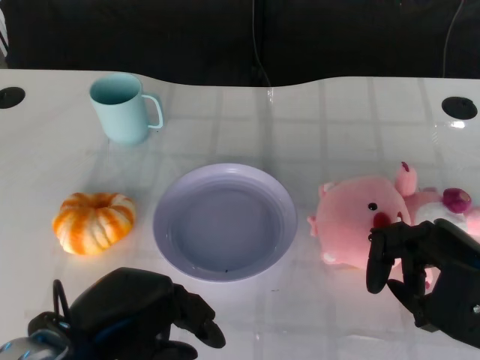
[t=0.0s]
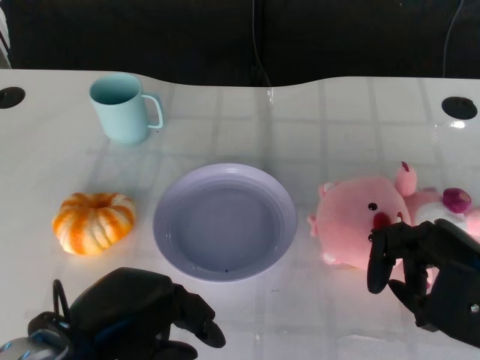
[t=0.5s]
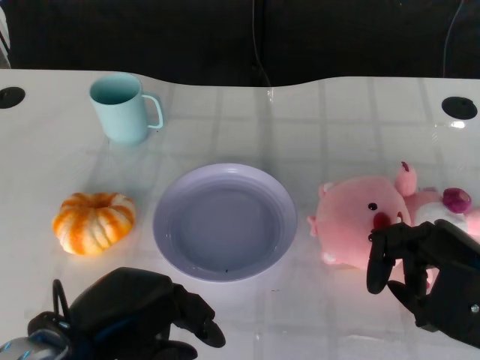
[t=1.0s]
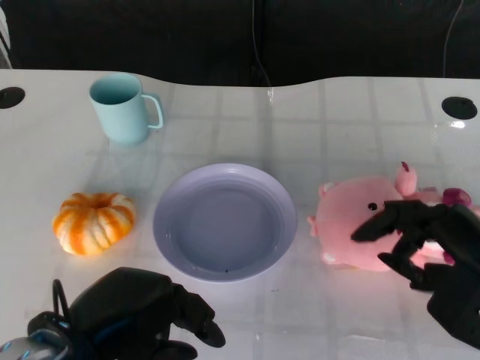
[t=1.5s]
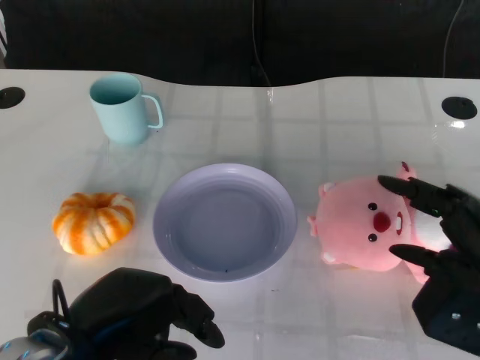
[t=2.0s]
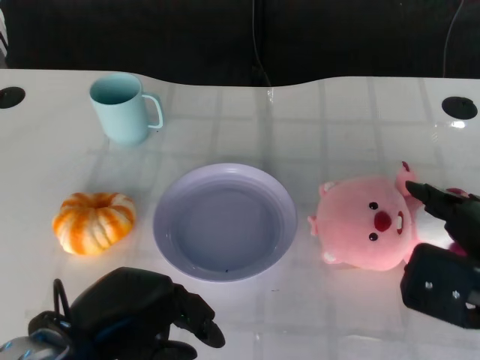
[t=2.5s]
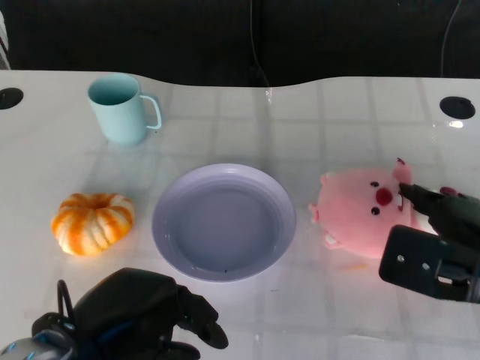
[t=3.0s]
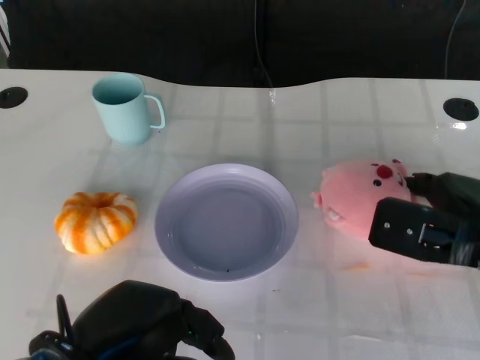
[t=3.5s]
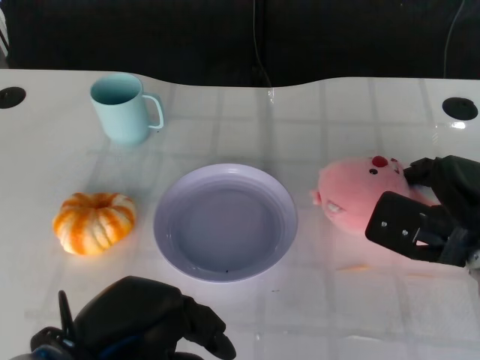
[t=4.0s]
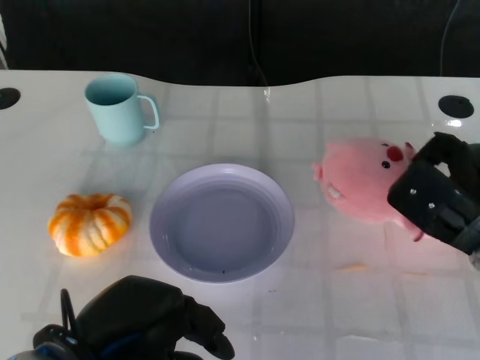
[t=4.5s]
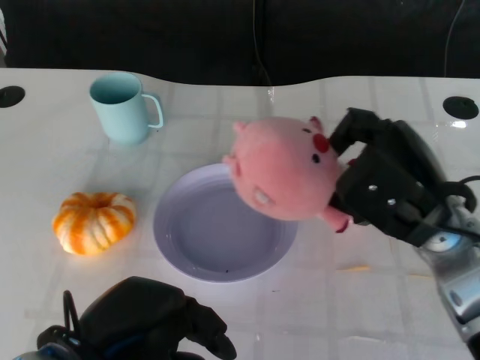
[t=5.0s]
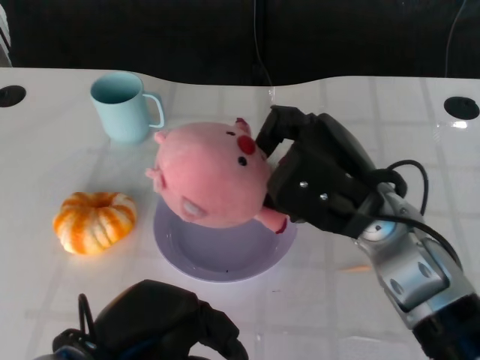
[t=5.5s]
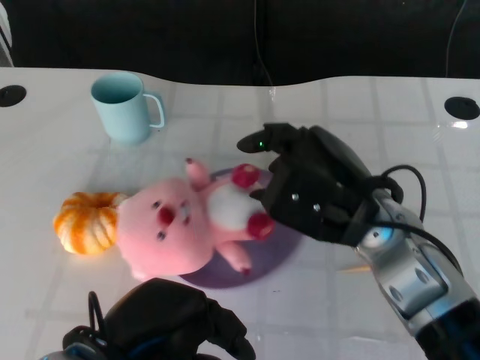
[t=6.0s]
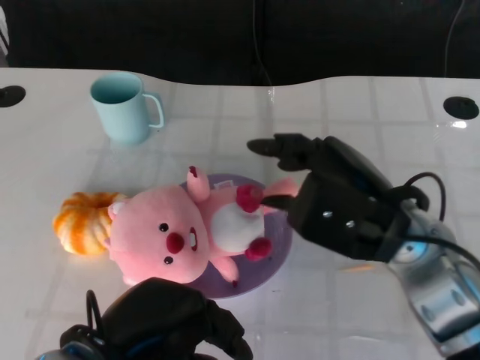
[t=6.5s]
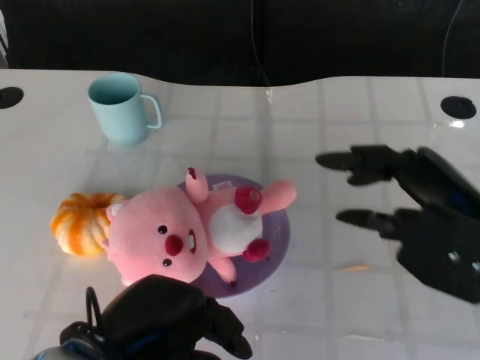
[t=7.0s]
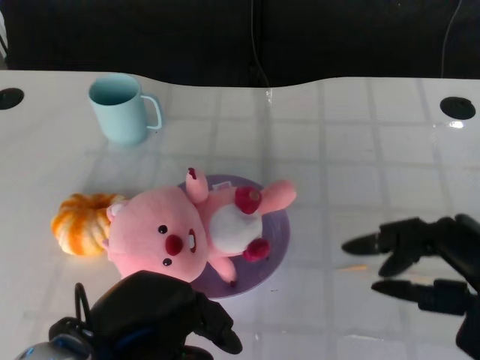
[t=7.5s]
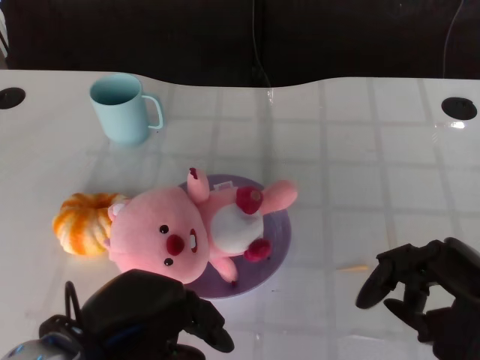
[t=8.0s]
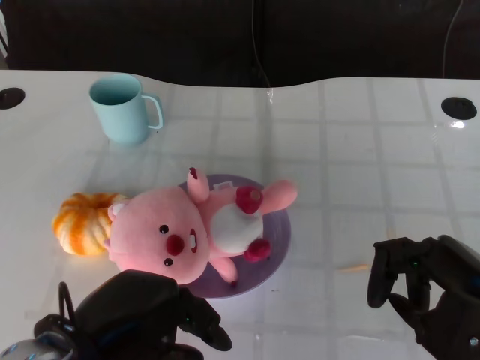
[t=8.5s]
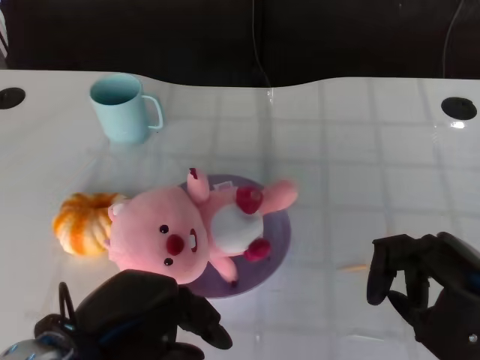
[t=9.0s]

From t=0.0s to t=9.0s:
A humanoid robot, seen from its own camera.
Task of the whole recording: Pick up the doll on the other side of the plate and place it into the plate.
Step, from t=1.5s to t=5.0s: Grasp the pink doll with the right gripper.
Step, from t=5.5s to t=6.5s: Place the pink doll into the plate with the right gripper.
From t=2.0s to t=4.5s: The right hand travels forward by about 10 cm.
From t=4.5s to t=7.0s: The right hand moves upward and backward, about 10 cm, and travels to the left and back again, approximately 10 cm each way.
From t=7.0s to t=9.0s: The right hand shifts some 5 cm downward.

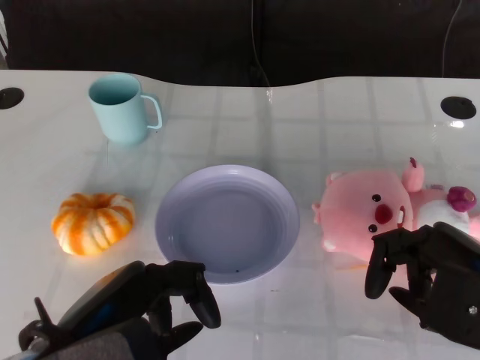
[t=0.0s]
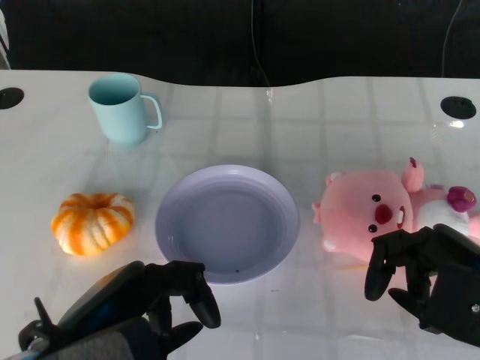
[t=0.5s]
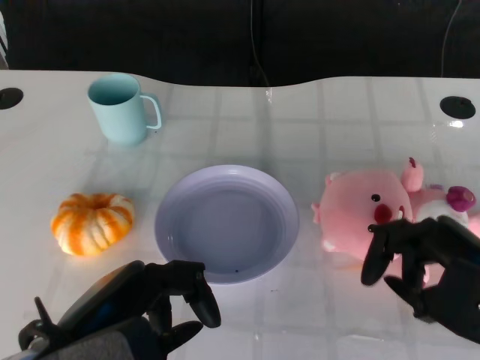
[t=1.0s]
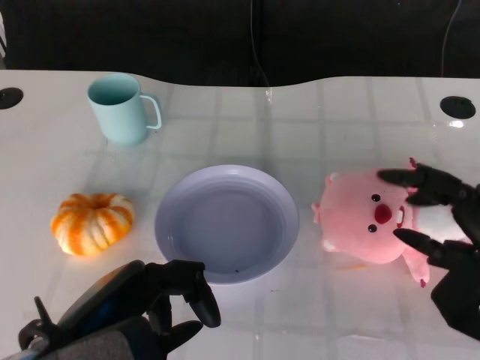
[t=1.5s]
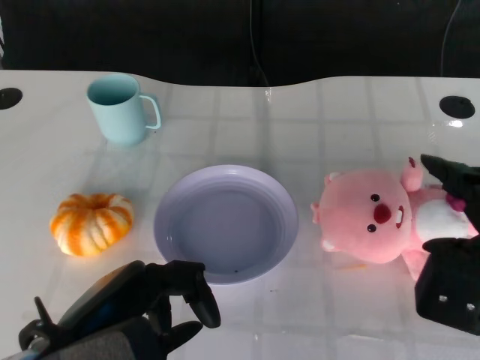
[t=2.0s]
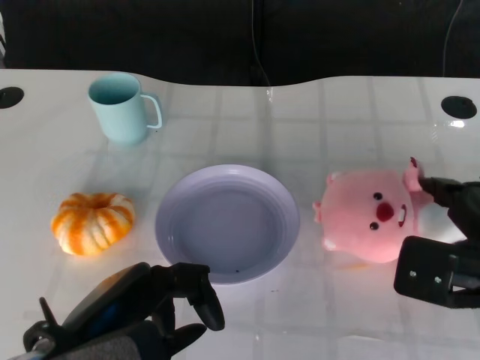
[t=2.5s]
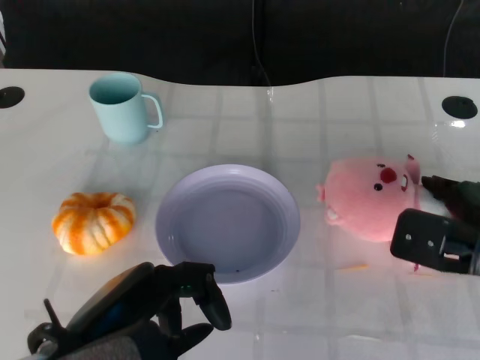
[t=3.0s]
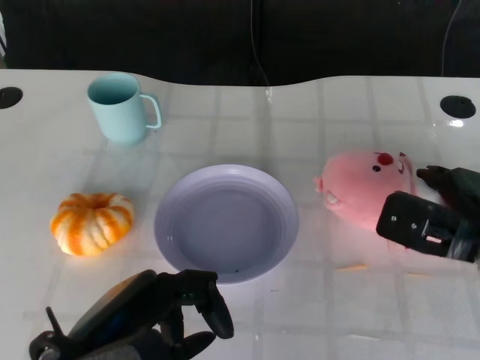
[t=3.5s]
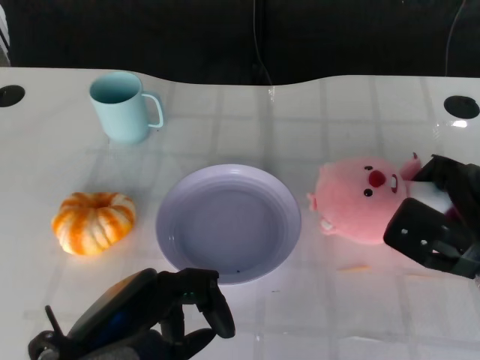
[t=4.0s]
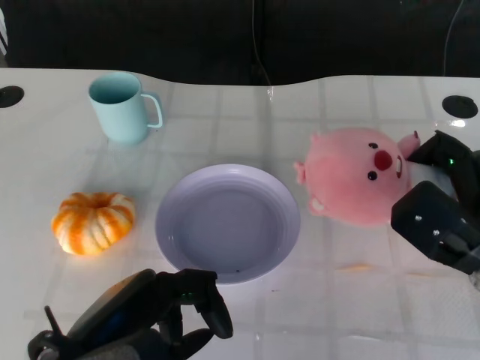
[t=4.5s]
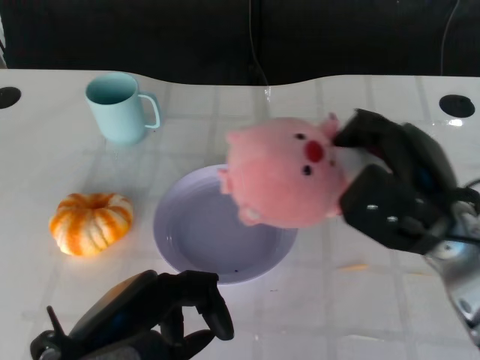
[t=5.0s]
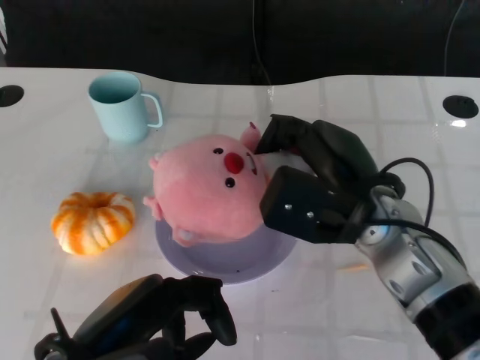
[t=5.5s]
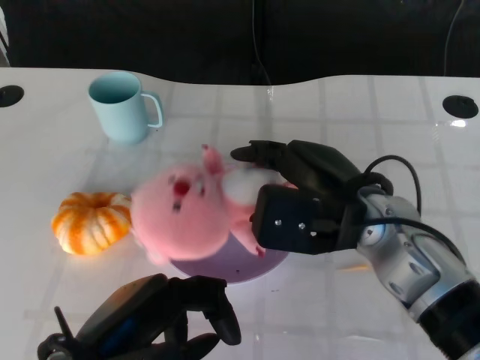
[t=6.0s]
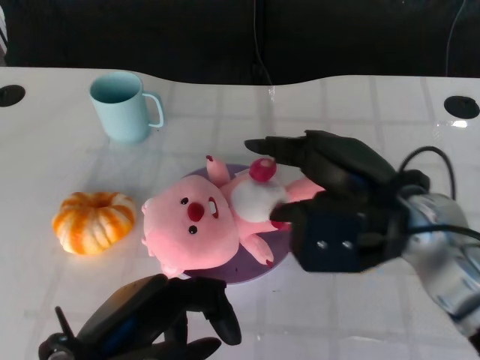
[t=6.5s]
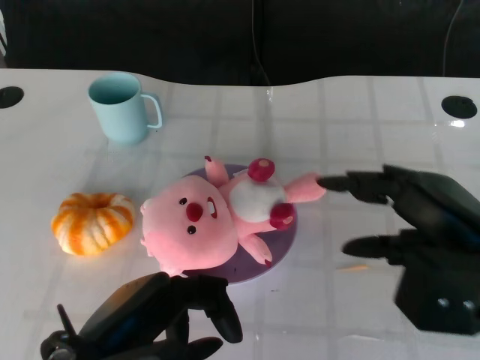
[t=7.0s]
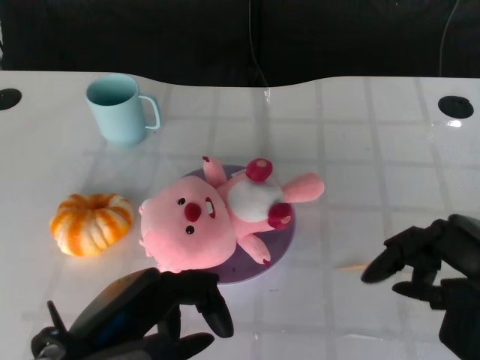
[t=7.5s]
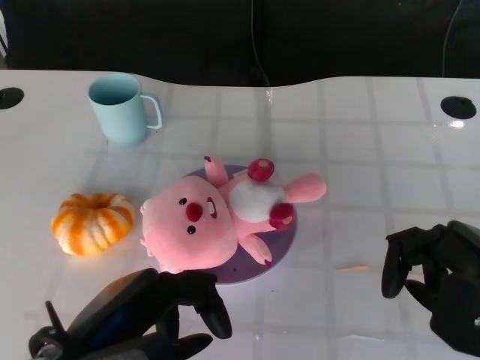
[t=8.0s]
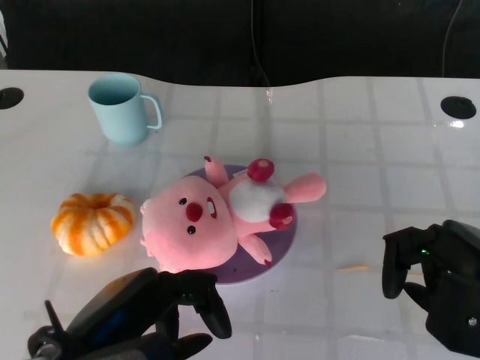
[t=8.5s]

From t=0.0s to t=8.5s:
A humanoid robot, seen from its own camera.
Task of the whole recording: Pick up the doll on the other side of the plate and place it into the plate.
Step, from t=1.0s to t=4.5s: Grasp the pink doll with the right gripper.
Step, from t=5.0s to t=6.5s: Place the pink doll into the plate with the right gripper.
From t=2.0s to t=4.0s: The right hand is displaced forward and downward by about 10 cm.
From t=4.0s to t=6.5s: The right hand heads to the left and upward, covering some 15 cm.
From t=6.5s to t=8.5s: The right hand shifts some 15 cm to the right and backward.

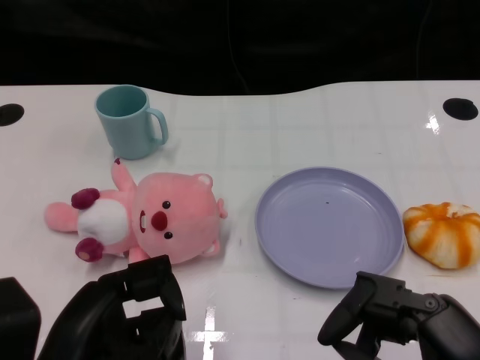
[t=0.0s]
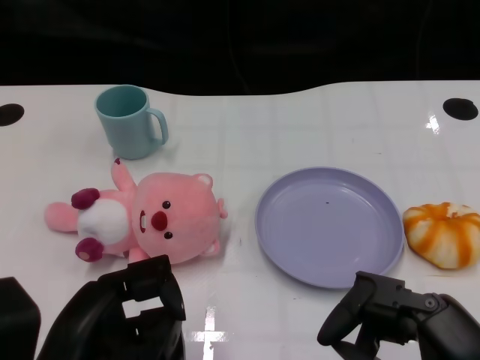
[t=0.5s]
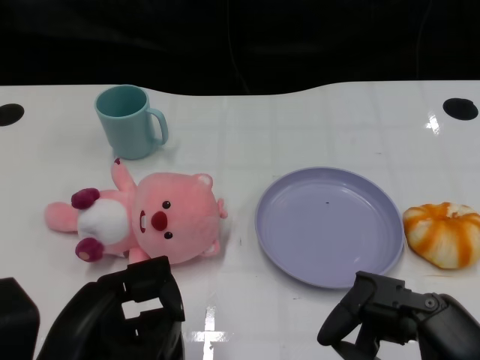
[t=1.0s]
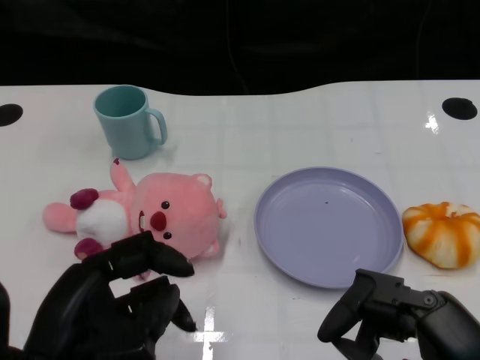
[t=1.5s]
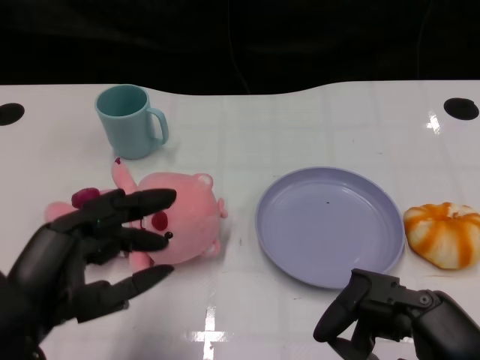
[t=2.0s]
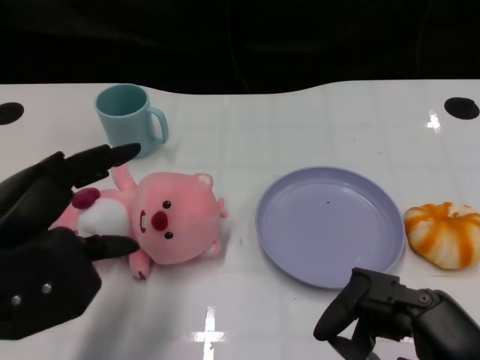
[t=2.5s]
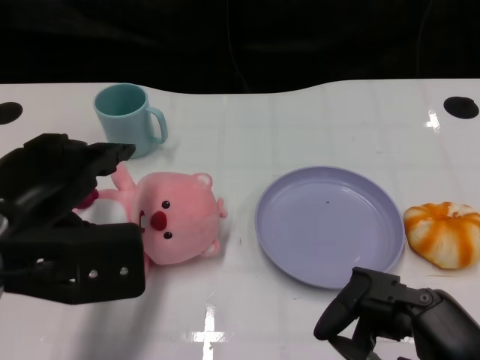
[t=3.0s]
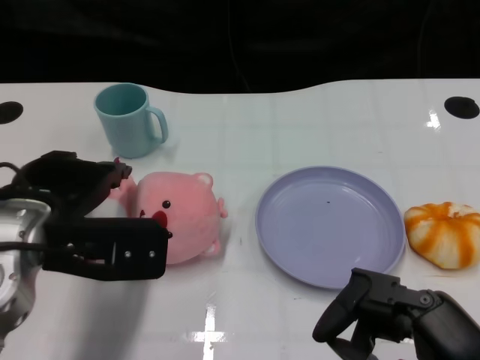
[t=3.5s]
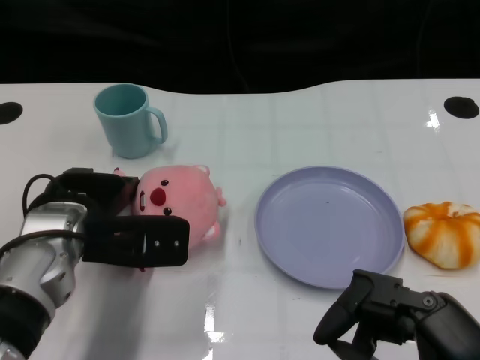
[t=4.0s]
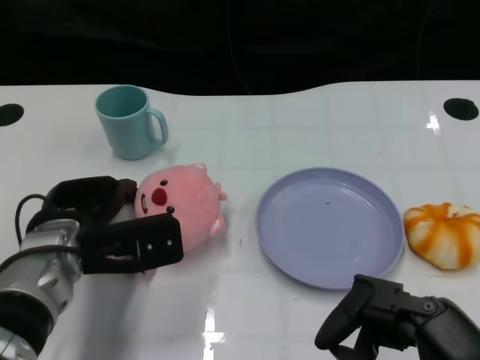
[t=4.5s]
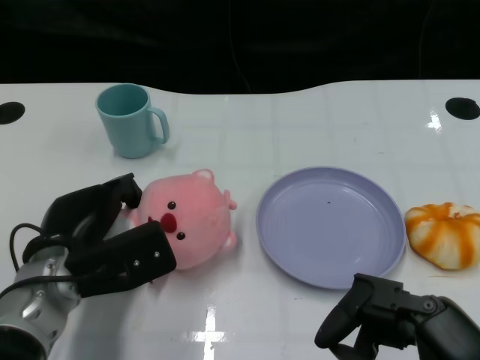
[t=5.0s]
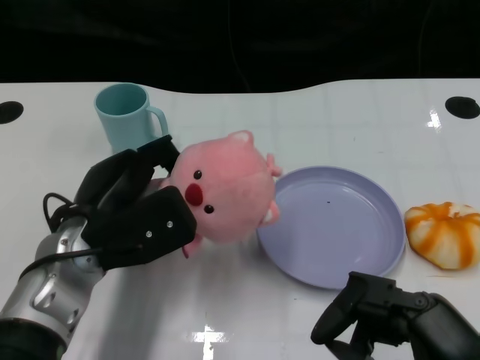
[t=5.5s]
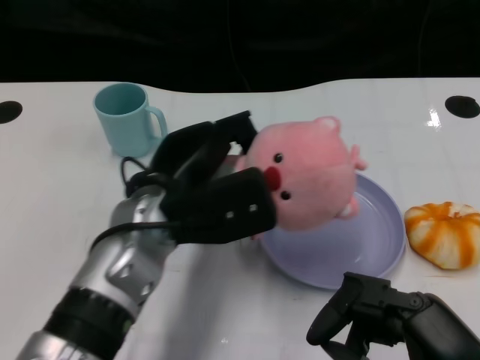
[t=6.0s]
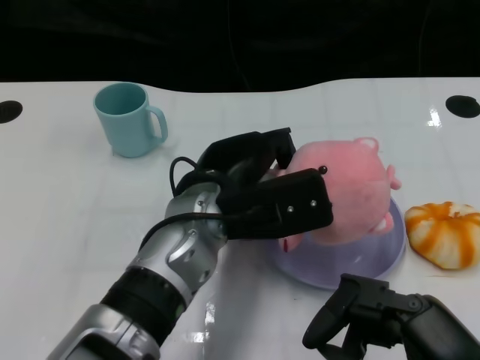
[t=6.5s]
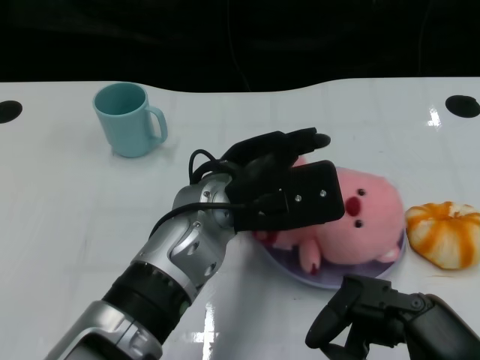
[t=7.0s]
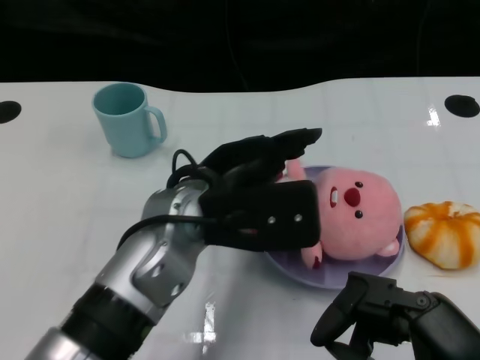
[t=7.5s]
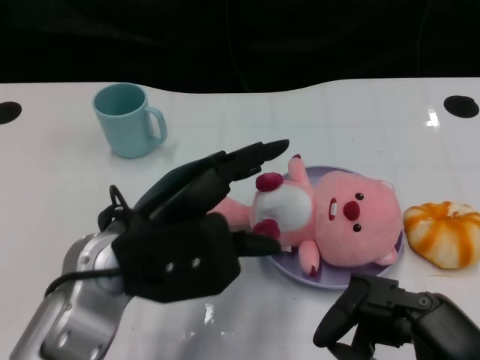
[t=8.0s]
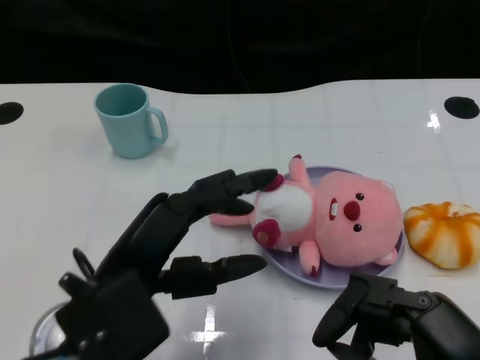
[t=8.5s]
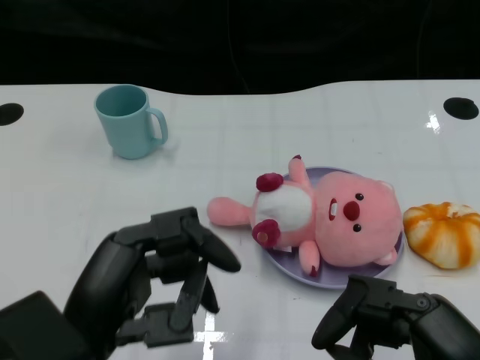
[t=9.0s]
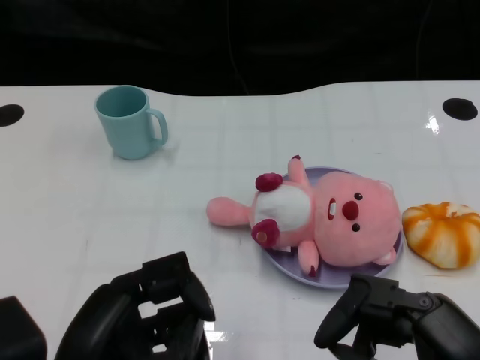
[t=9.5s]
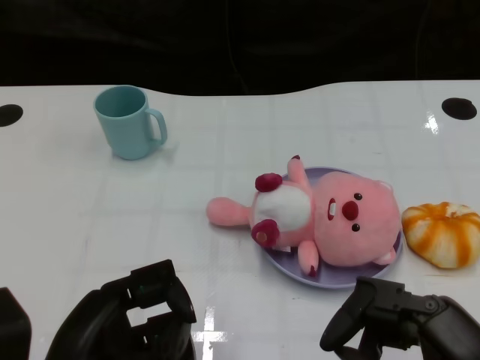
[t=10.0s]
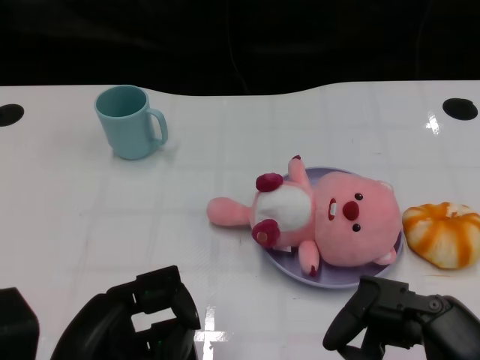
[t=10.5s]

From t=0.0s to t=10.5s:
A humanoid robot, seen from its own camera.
Task of the whole recording: Pick up the doll on one side of the plate and place it into the plate.
Step, from t=1.5s to t=4.5s: Grasp the pink doll with the left gripper.
Step, from t=5.5s to t=7.0s: Place the pink doll into the plate with the left gripper.
From t=2.0s to t=4.0s: The left hand travels forward by about 15 cm.
From t=4.0s to t=6.5s: The left hand moves to the right, roughly 15 cm.
From t=6.5s to t=8.5s: The left hand shifts roughly 15 cm to the left and backward.
From t=8.5s to t=10.5s: The left hand shifts roughly 5 cm backward.
